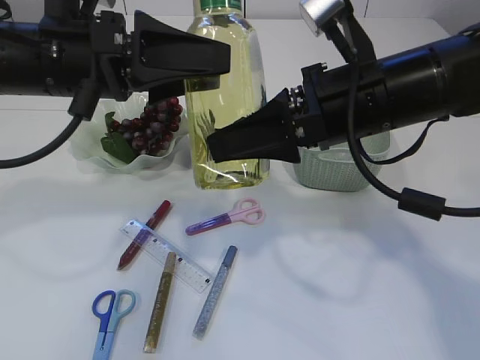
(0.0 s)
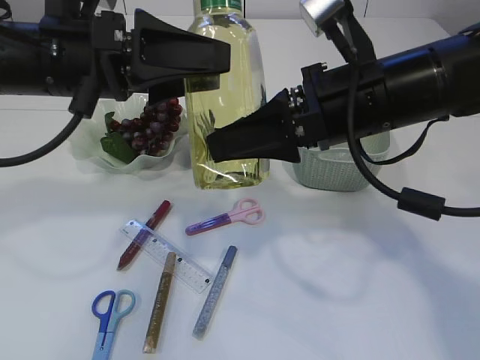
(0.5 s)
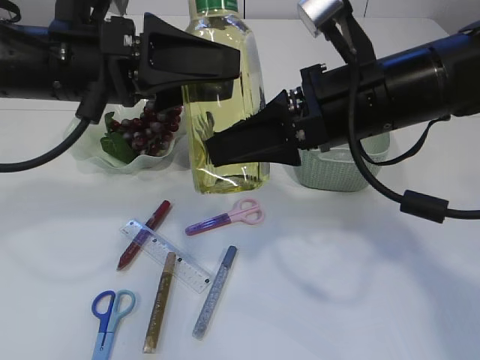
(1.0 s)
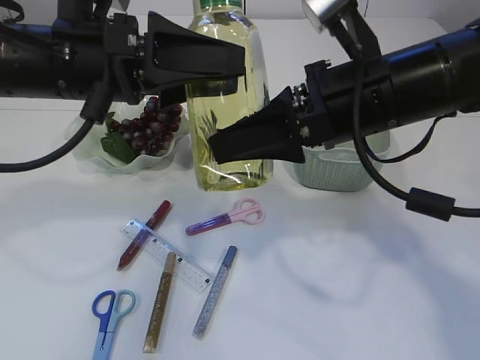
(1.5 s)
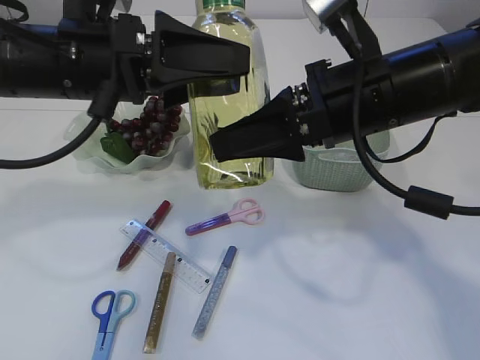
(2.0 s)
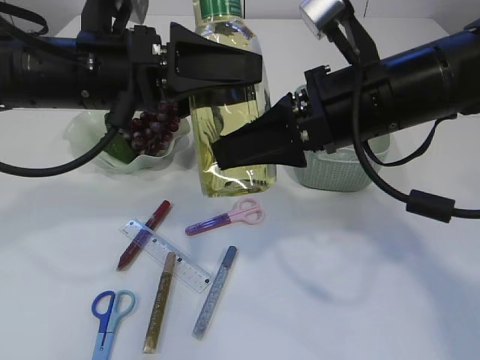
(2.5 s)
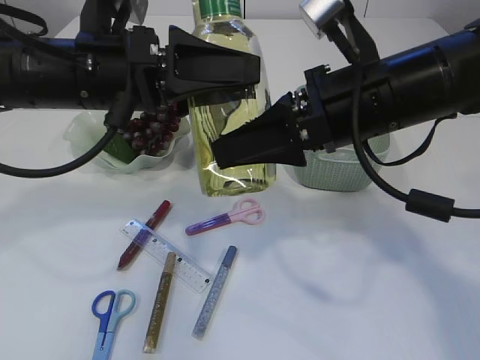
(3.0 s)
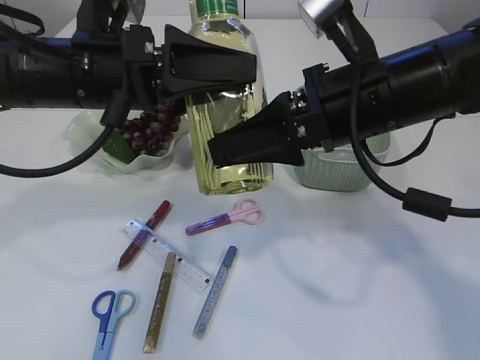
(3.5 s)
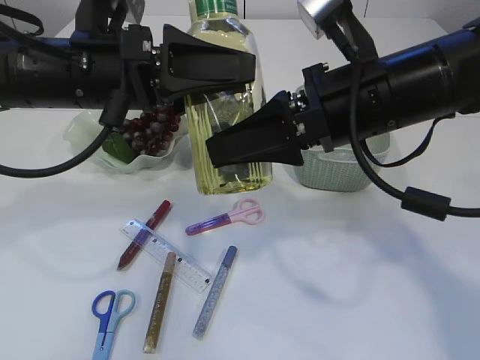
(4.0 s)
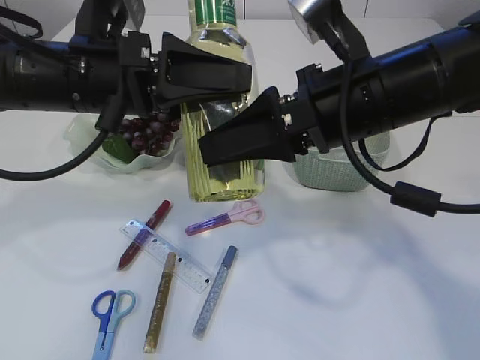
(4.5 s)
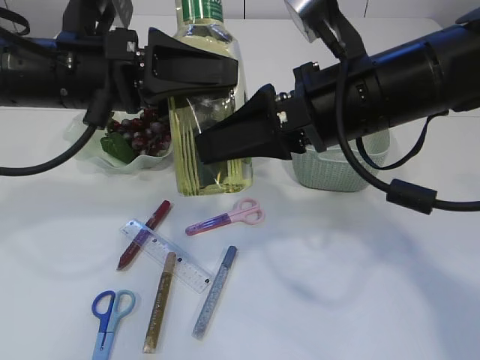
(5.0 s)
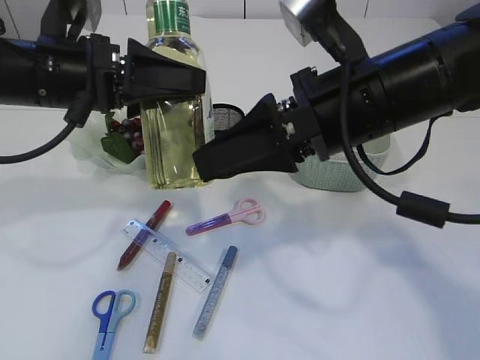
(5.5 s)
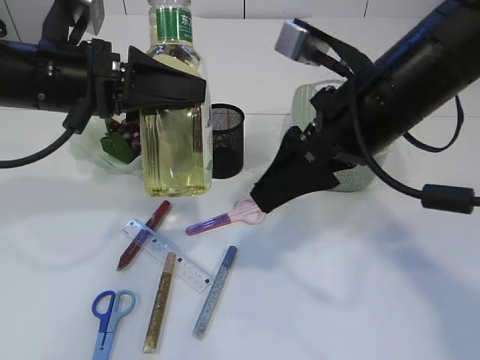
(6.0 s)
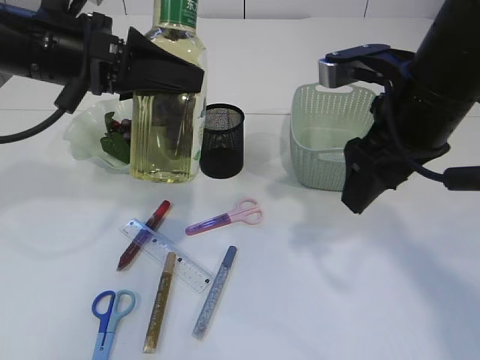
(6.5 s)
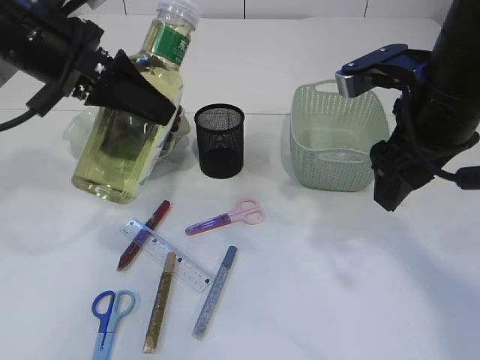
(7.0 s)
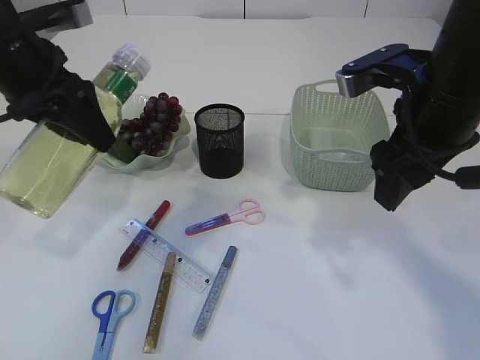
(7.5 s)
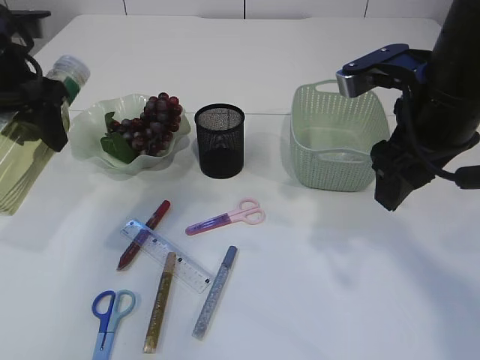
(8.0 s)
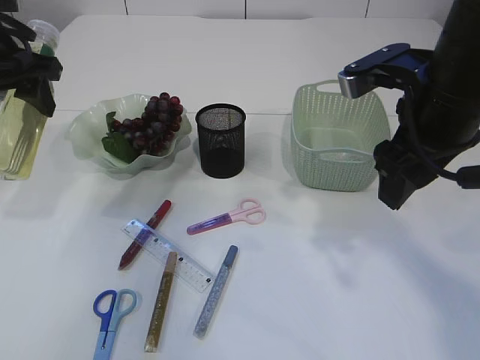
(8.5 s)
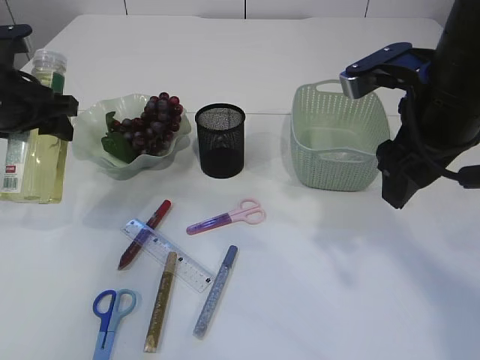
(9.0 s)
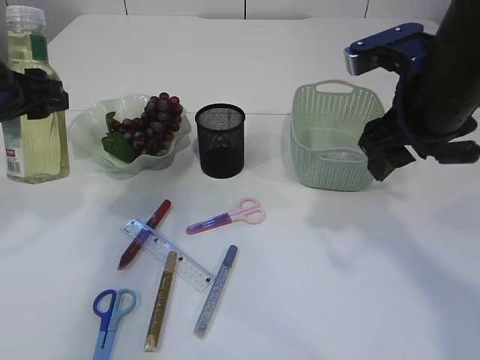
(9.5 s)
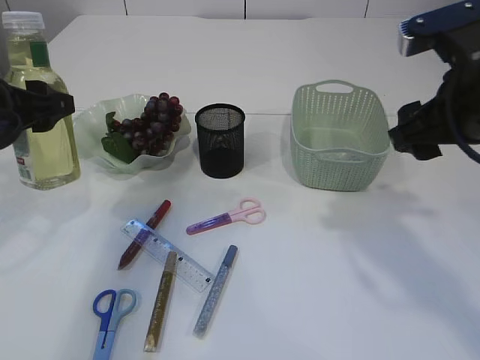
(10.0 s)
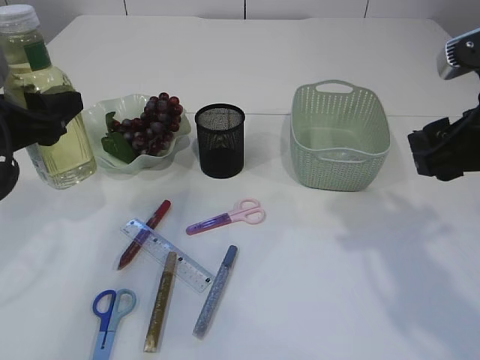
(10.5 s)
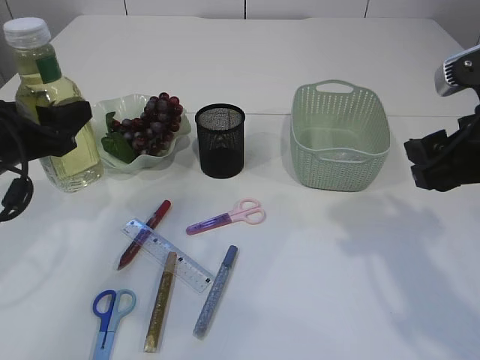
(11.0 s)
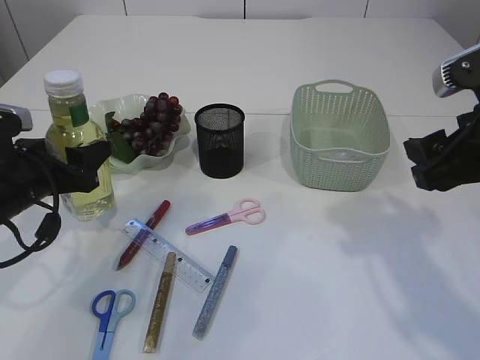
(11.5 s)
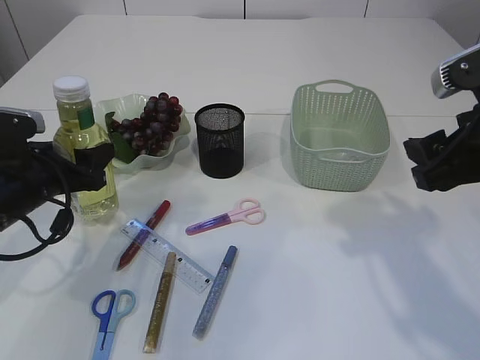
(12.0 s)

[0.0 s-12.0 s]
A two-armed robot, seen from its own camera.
Step, 0.0 to 6.0 s: transfer the bottle to the left arm.
0.0 to 4.0 s: The grippers move only a little.
6.0 to 8.0 s: The right gripper shifts roughly 5 cm to the right. The left gripper heads to the left, covering approximately 10 cm.
8.0 to 10.0 s: The left gripper ends up roughly 5 cm from where it was.
10.0 to 12.0 s: The left gripper travels downward by approximately 10 cm, while the right gripper moves approximately 5 cm.

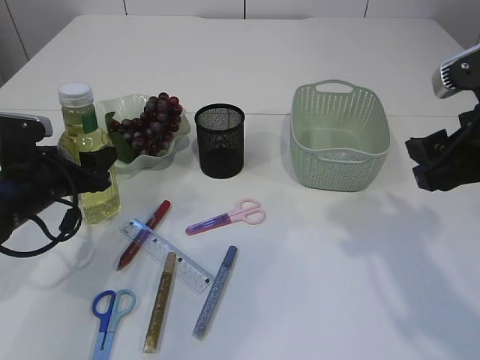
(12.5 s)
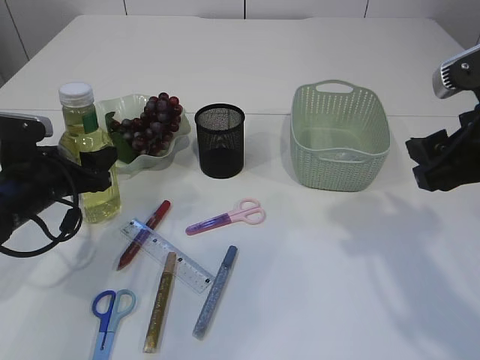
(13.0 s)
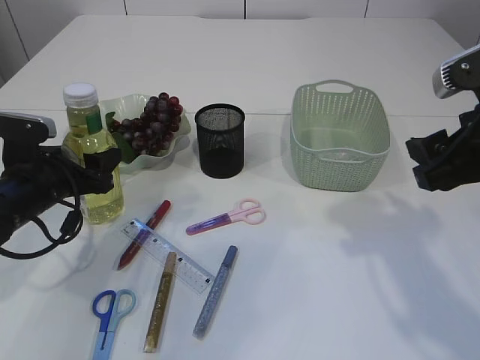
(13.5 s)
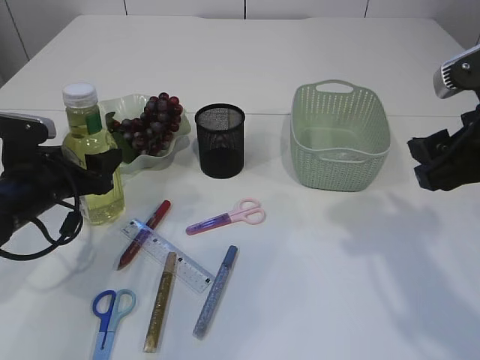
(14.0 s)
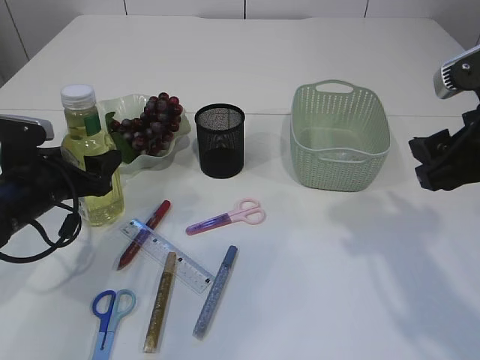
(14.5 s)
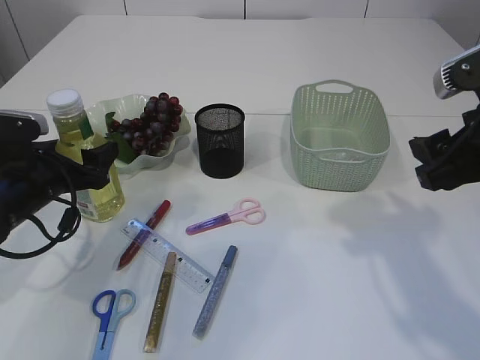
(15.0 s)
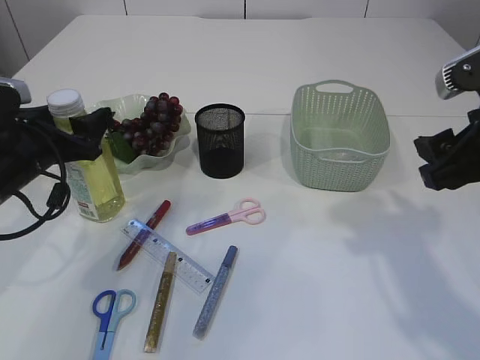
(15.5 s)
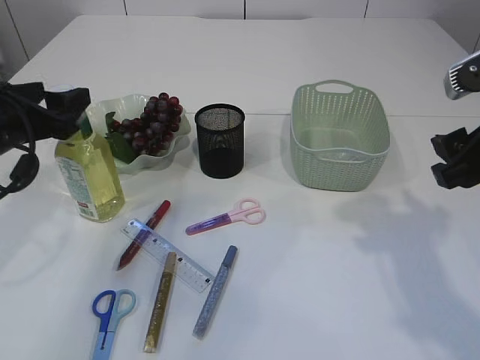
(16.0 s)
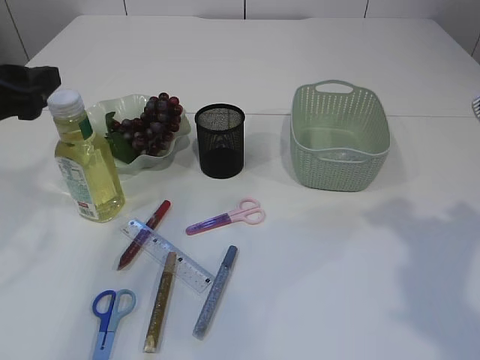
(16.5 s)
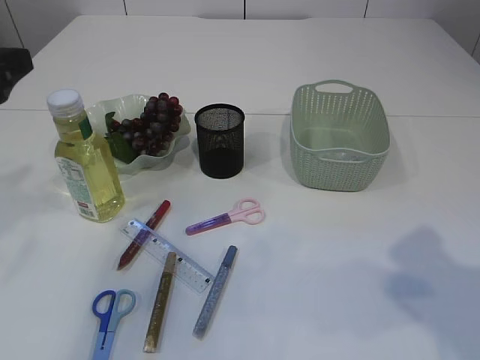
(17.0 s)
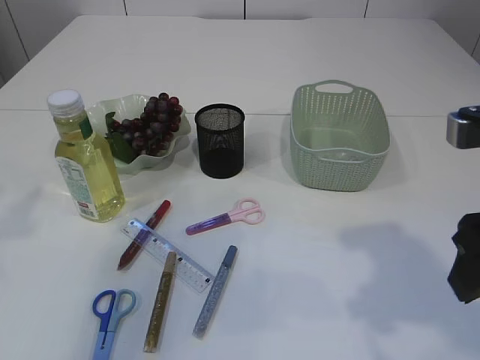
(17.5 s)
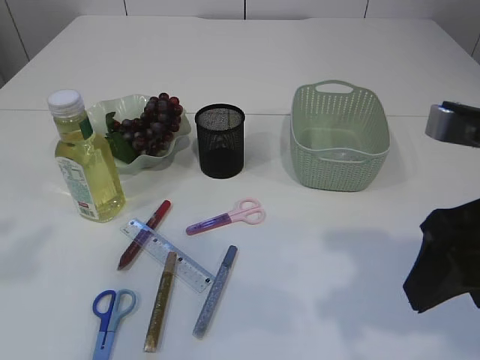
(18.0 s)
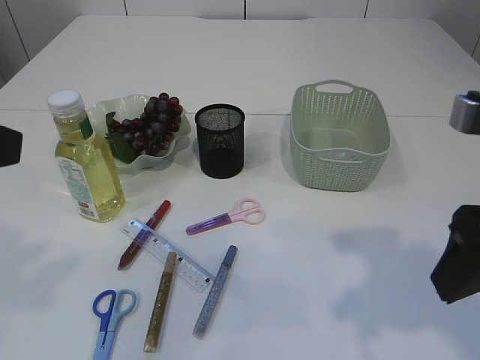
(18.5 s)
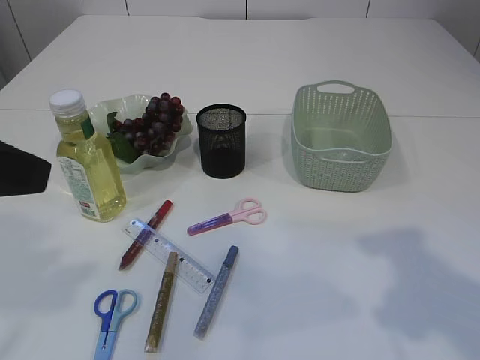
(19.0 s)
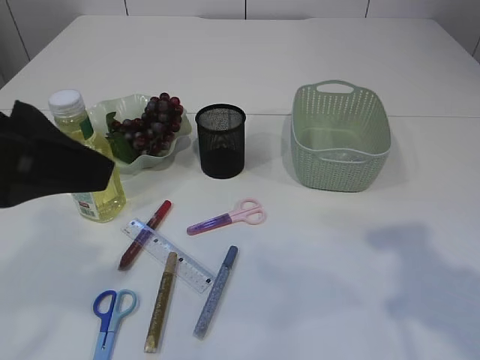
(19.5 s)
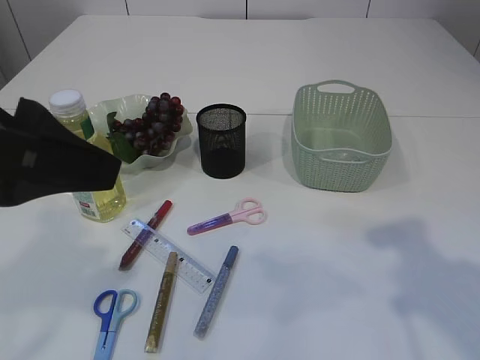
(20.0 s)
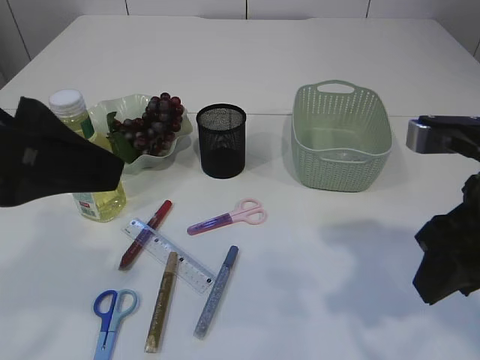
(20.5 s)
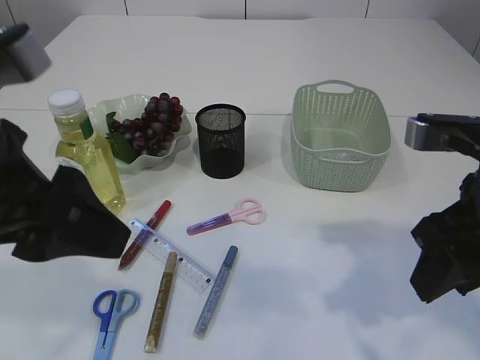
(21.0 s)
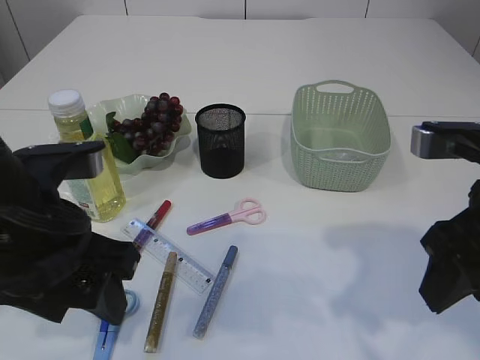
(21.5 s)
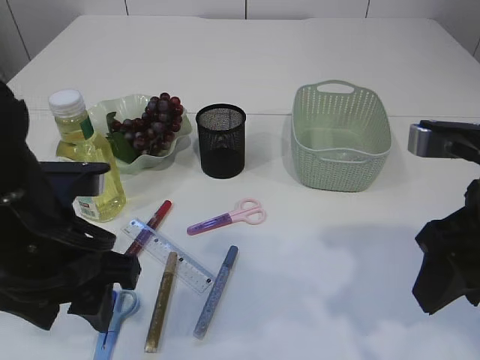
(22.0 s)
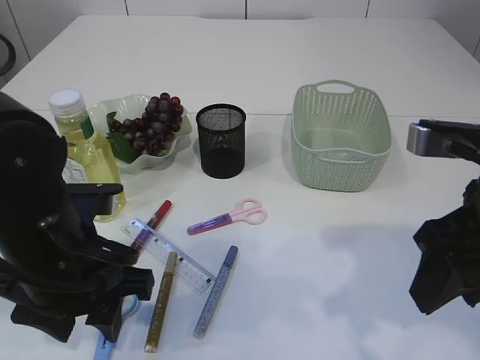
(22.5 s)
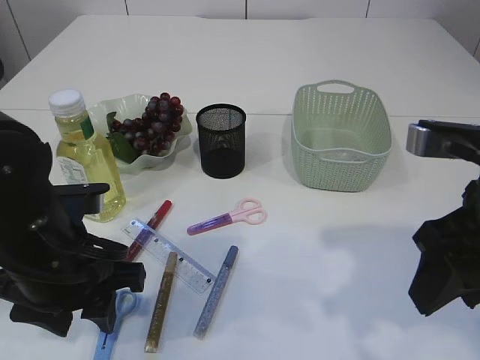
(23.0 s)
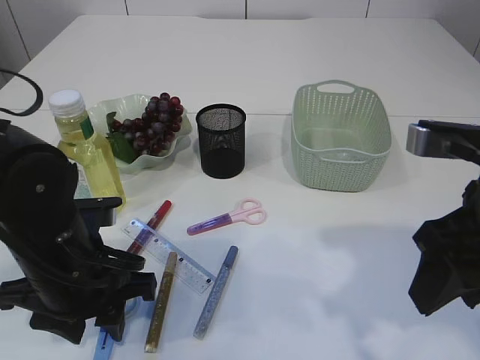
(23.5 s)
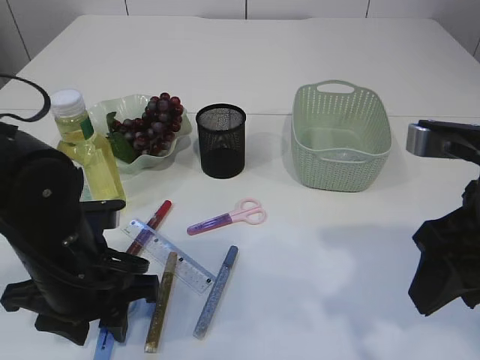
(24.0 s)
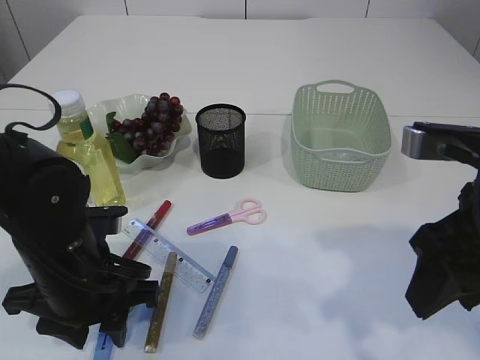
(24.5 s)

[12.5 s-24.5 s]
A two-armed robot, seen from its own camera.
Step, 12.5 to 16.0 s: Place the bottle.
12.5 to 14.5 s: The two grippers keep their place.
14.5 to 16.5 s: The left gripper goes roughly 15 cm upward.
16.5 to 18.5 s: The right gripper travels to the left and backward by approximately 10 cm; the left gripper is displaced backward and upward by approximately 20 cm.
18.5 to 20.5 s: The left gripper moves to the right, about 5 cm.
20.5 to 22.5 s: The left gripper goes approximately 15 cm downward.
22.5 to 24.5 s: The left gripper is displaced downward by some 5 cm.

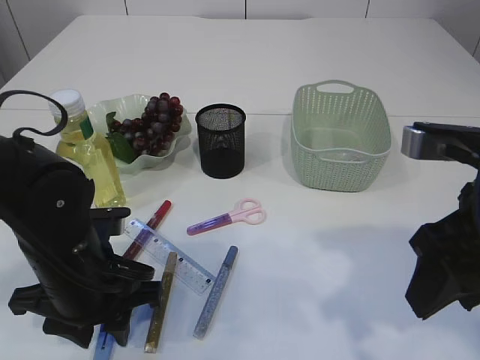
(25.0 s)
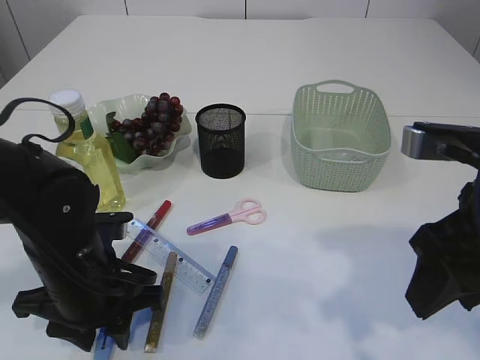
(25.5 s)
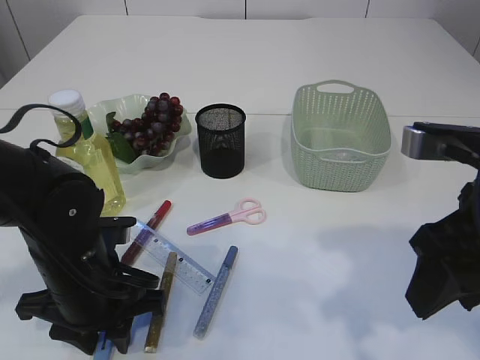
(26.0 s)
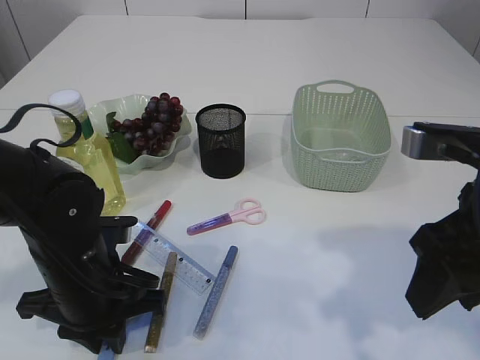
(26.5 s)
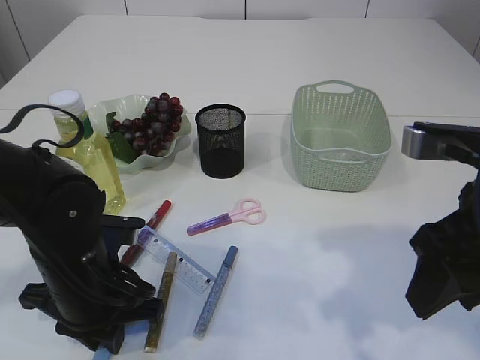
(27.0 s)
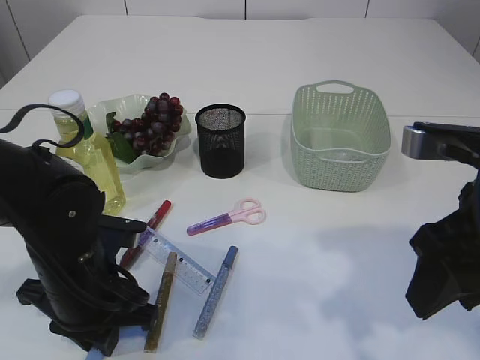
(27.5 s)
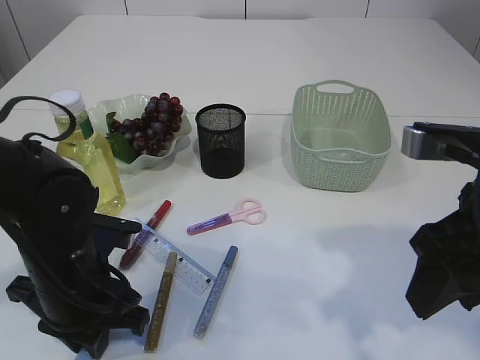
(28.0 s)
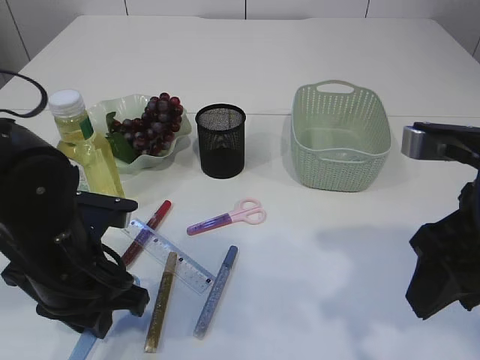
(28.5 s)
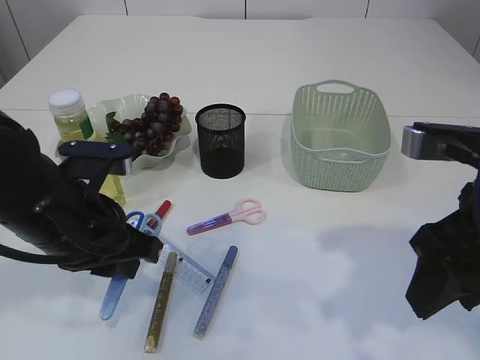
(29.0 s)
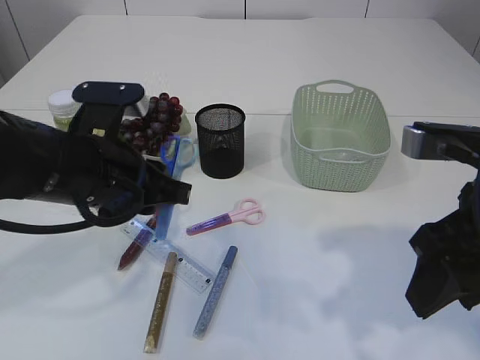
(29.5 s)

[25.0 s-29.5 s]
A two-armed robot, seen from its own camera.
Step, 25.0 to 29.0 s: pick up the blue scissors.
25.0 to 27.0 s: There are only small adjustments of the grippers.
27.0 to 29.5 s: The left gripper heads upward, covering approximately 10 cm.
